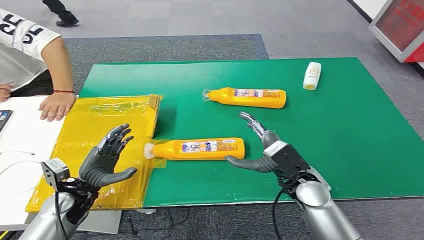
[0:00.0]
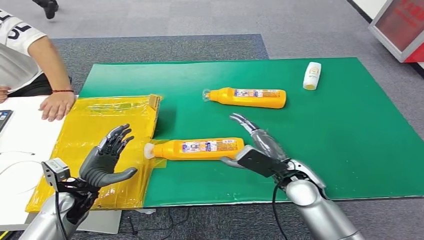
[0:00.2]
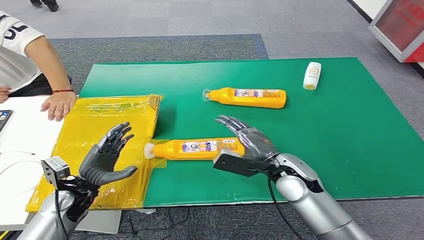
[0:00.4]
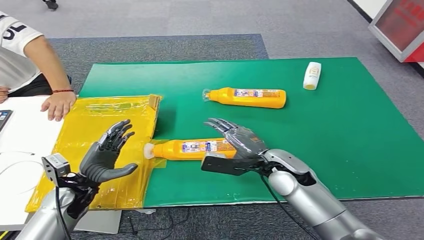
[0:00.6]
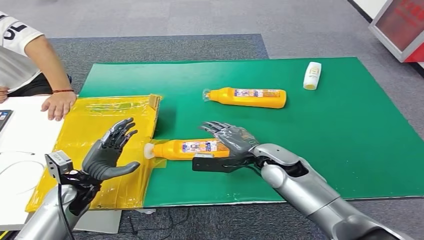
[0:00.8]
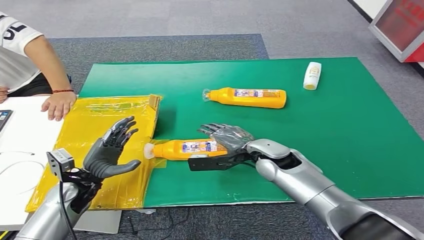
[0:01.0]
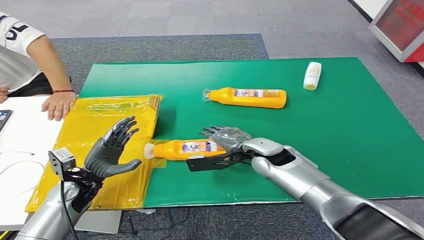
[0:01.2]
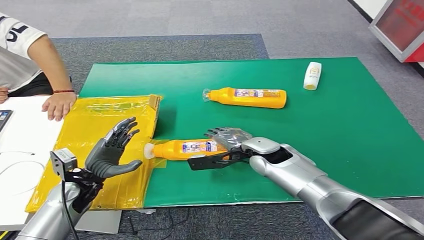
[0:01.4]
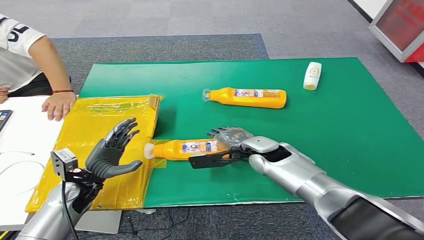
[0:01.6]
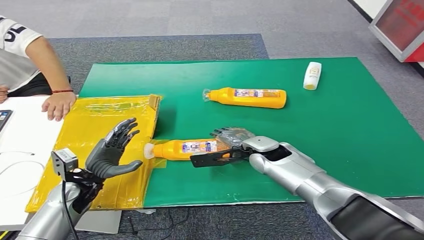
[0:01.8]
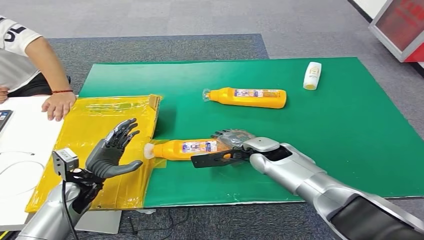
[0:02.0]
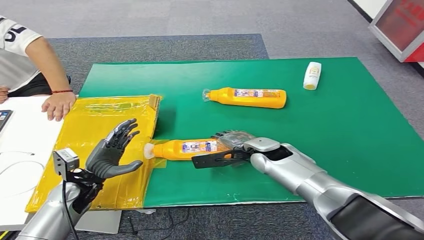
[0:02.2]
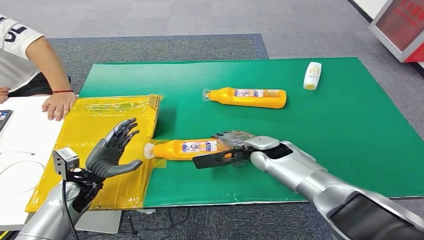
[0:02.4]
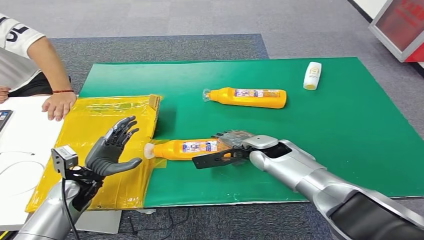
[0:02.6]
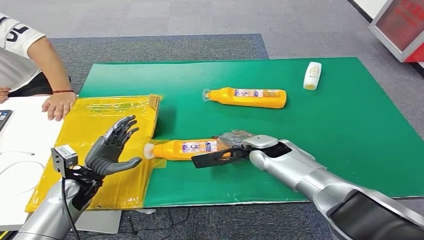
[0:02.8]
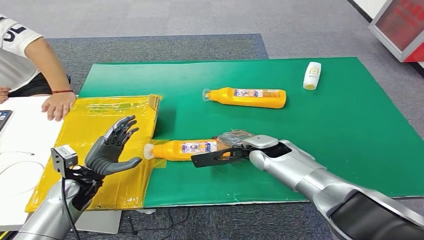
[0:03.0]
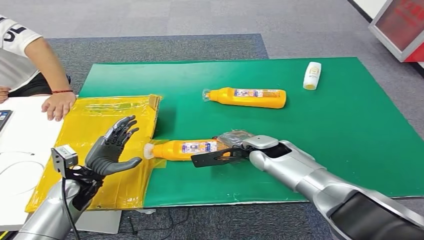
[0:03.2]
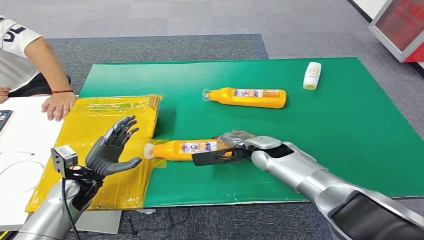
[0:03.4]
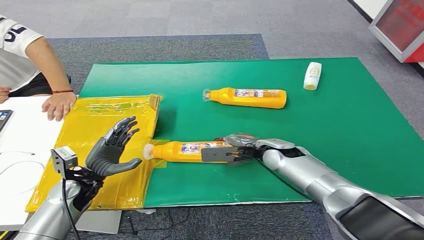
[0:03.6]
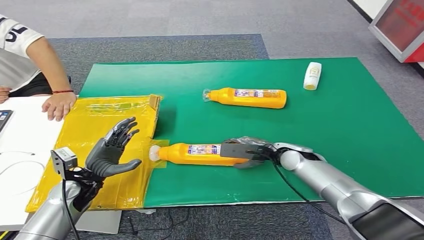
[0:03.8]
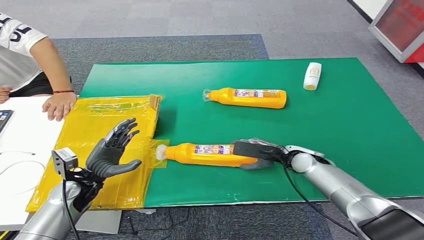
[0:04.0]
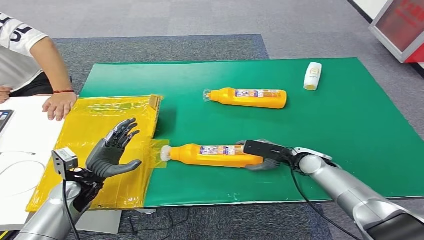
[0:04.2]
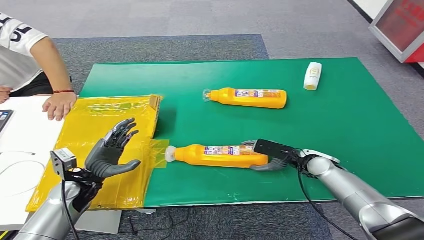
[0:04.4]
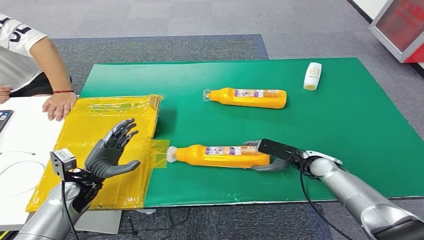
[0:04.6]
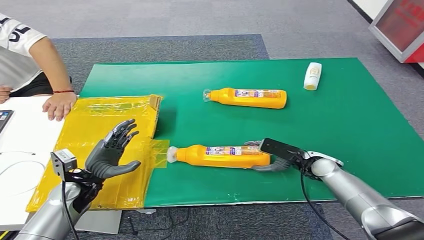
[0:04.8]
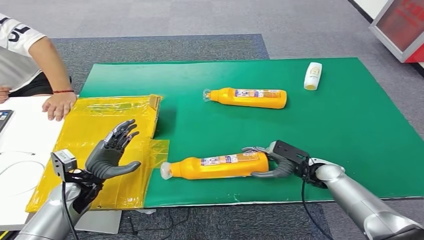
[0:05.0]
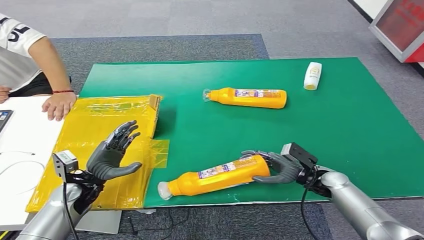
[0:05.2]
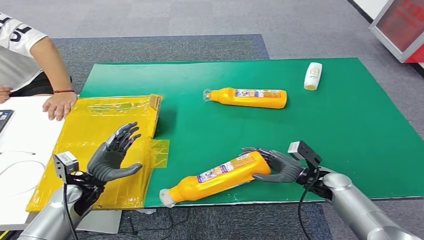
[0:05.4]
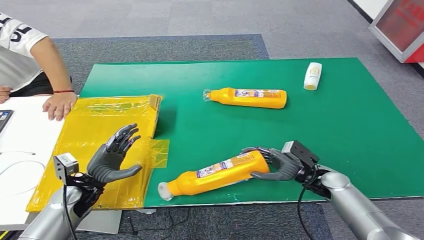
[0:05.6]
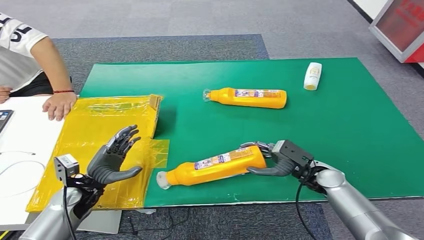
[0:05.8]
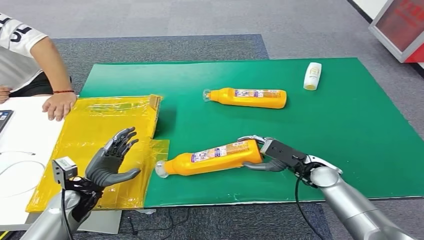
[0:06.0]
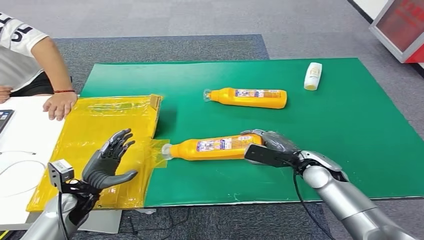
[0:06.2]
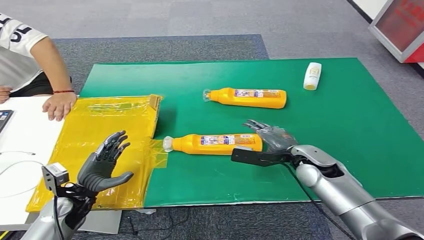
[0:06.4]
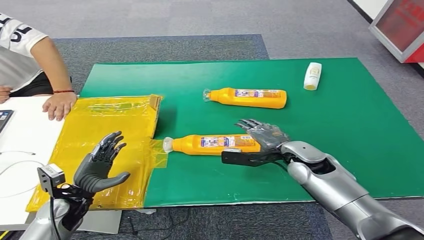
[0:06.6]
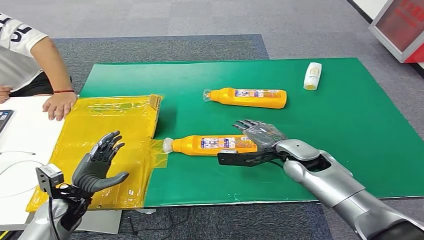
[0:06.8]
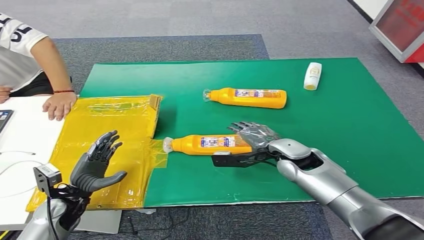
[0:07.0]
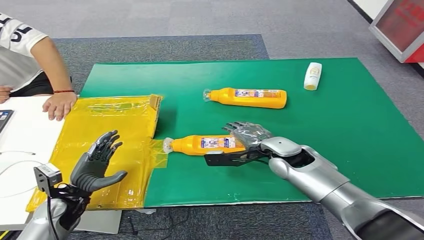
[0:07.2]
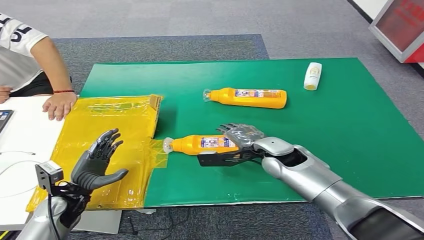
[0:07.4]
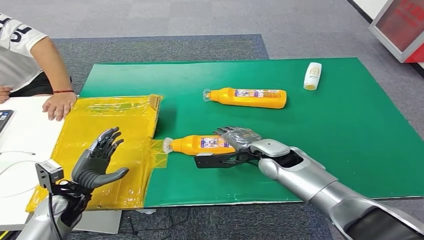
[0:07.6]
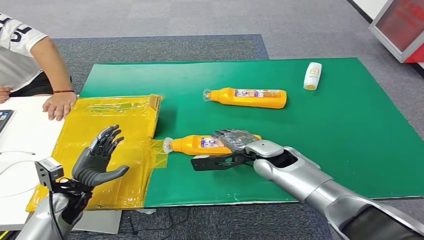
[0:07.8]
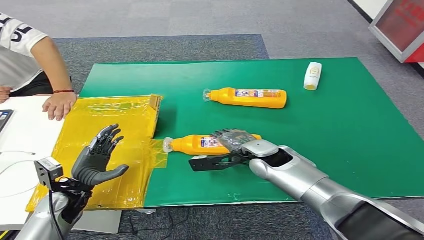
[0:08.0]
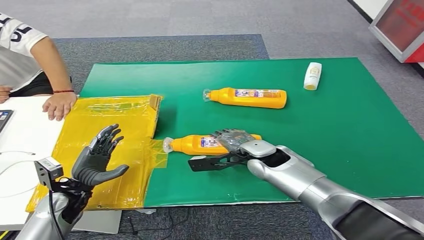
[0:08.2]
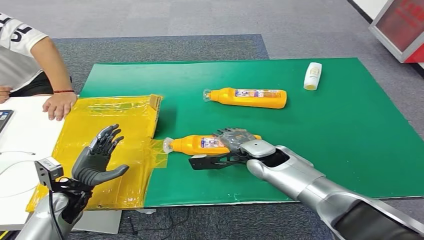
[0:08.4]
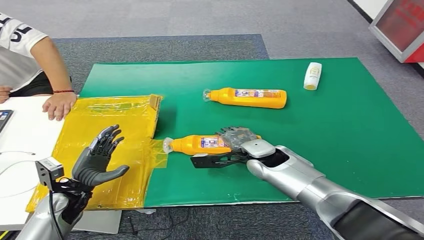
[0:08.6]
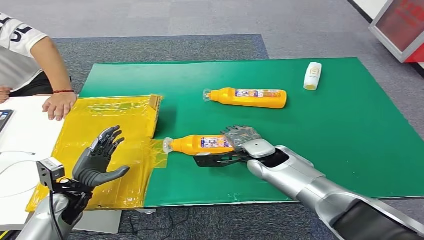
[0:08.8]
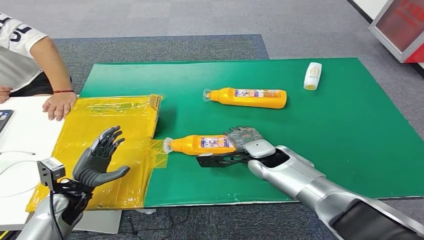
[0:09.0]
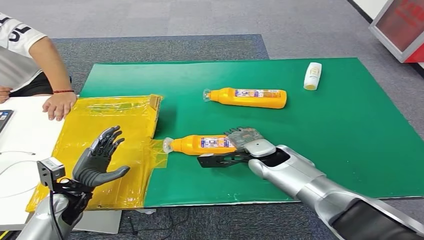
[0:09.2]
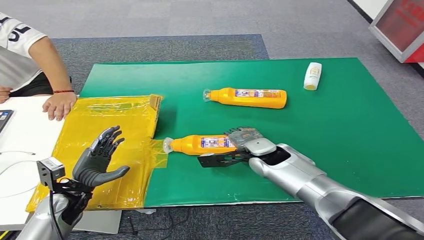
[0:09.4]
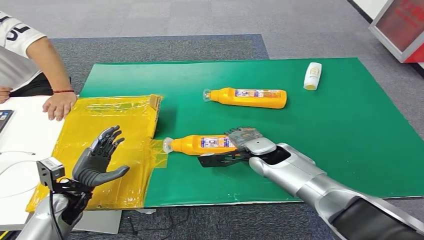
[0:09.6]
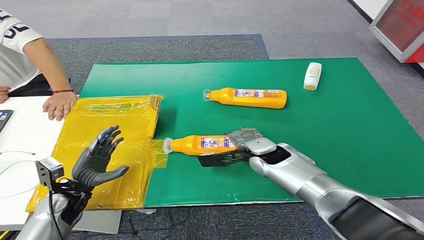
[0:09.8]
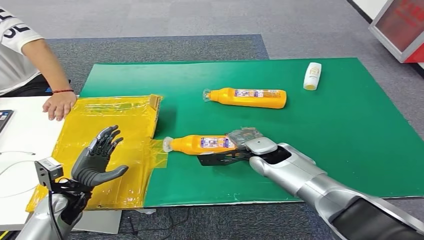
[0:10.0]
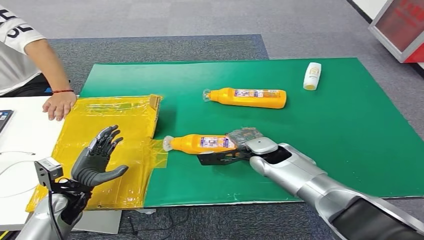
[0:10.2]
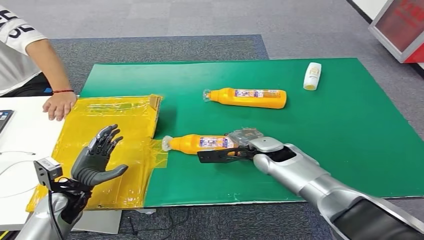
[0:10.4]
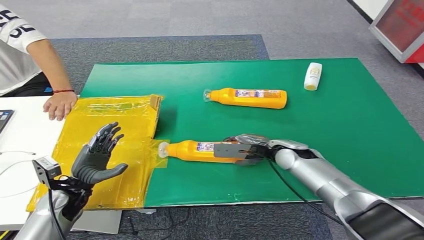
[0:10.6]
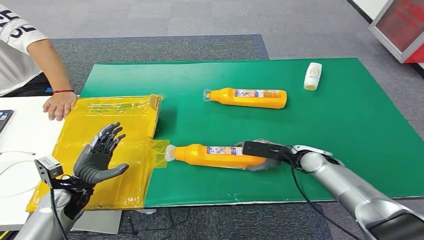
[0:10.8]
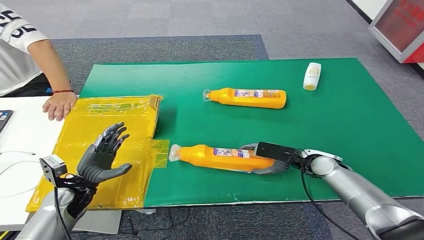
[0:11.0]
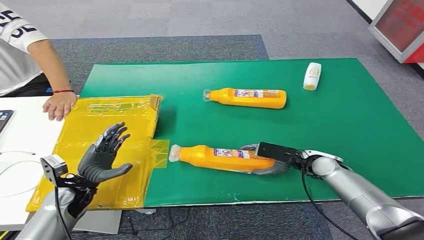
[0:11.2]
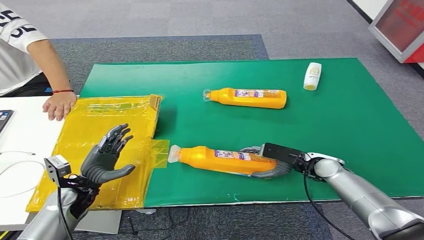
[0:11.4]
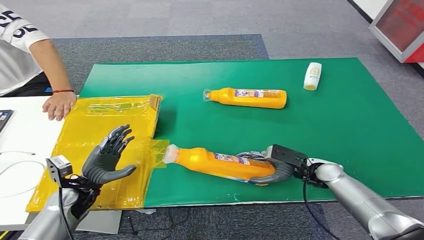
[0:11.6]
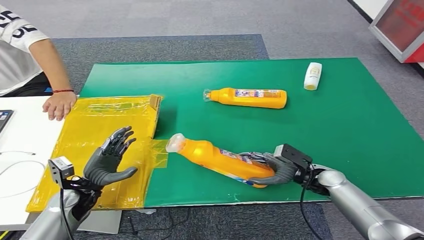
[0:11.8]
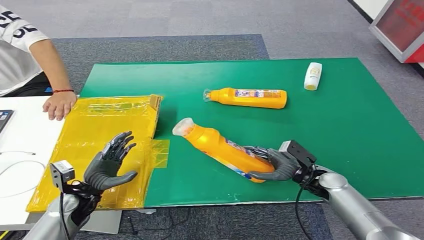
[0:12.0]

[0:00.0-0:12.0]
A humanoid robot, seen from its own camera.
0:01.6 to 0:03.0: The hands make only small movements.
0:03.0 to 0:04.4: The right hand moves to the right and downward, about 15 cm.
0:06.0 to 0:07.6: The right hand shifts some 15 cm to the left and upward.
0:07.6 to 0:10.4: The hands move only a little.
0:10.4 to 0:12.0: The right hand travels to the right, downward and backward by about 15 cm.

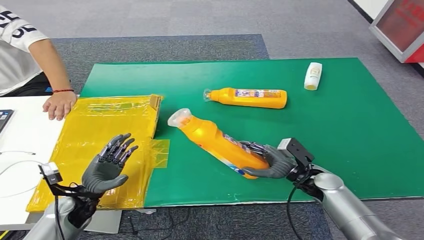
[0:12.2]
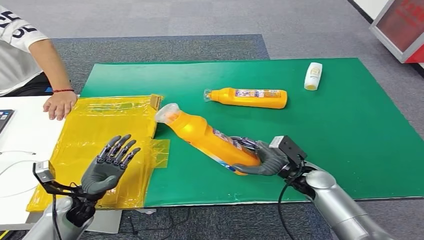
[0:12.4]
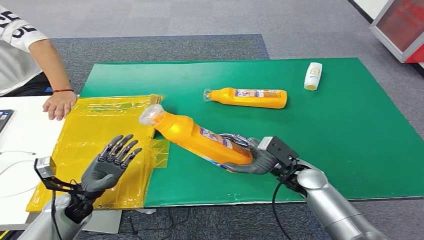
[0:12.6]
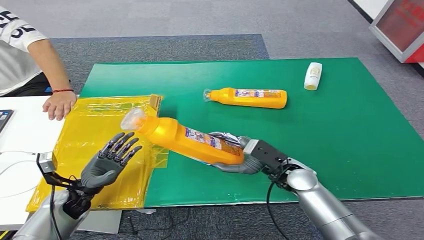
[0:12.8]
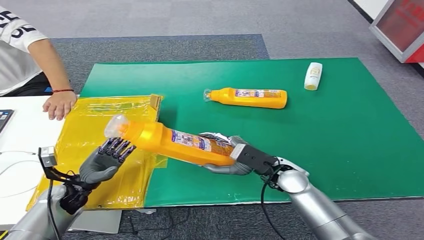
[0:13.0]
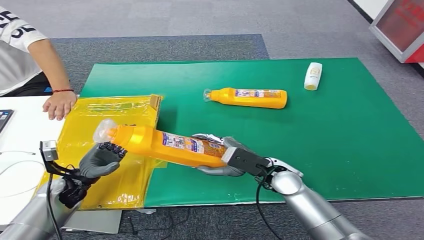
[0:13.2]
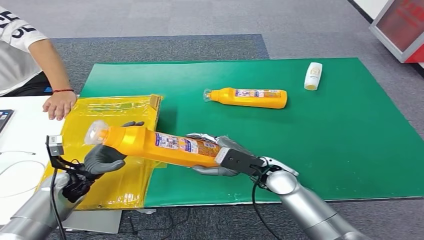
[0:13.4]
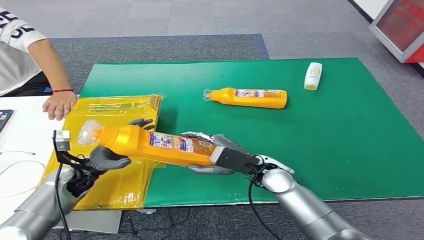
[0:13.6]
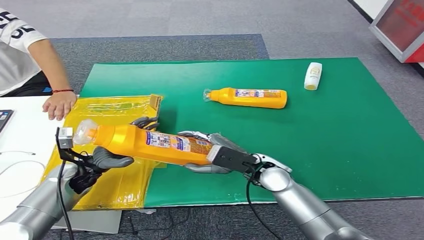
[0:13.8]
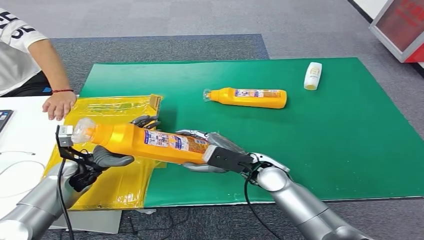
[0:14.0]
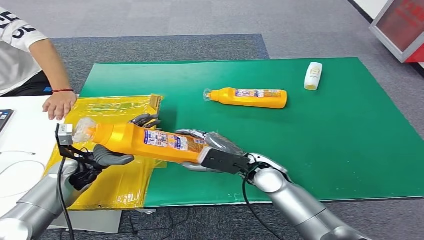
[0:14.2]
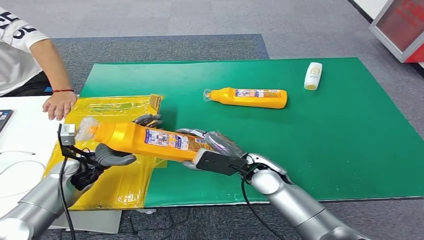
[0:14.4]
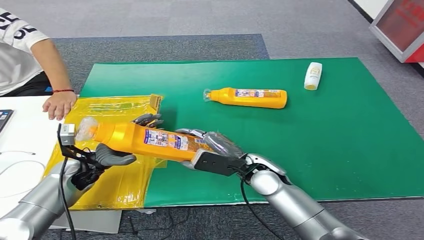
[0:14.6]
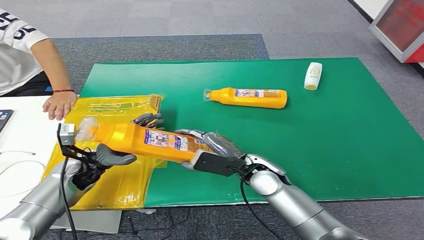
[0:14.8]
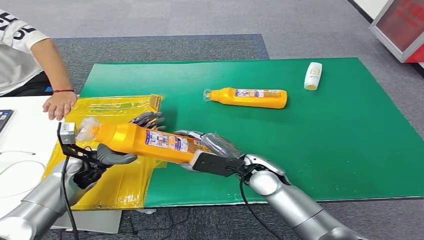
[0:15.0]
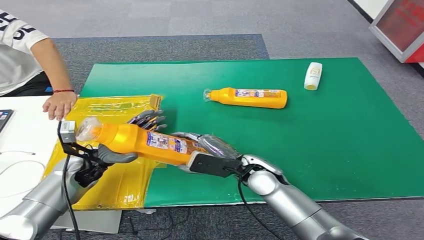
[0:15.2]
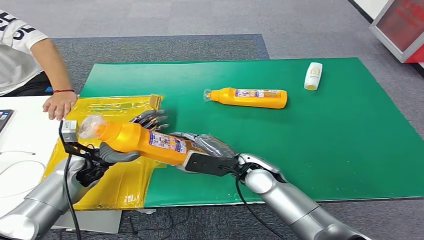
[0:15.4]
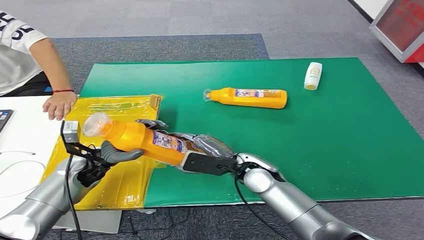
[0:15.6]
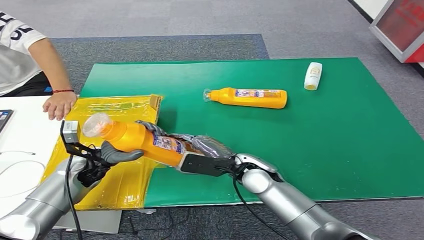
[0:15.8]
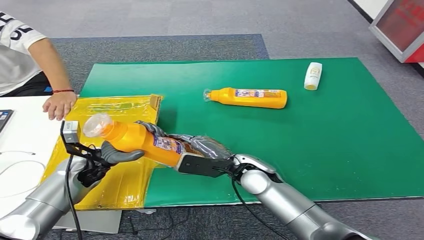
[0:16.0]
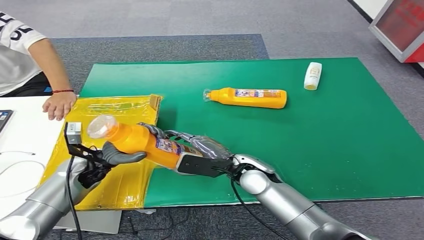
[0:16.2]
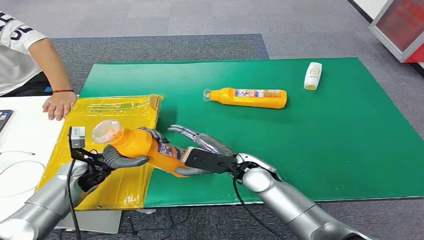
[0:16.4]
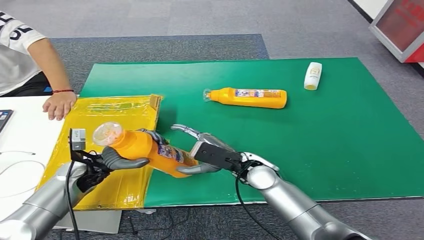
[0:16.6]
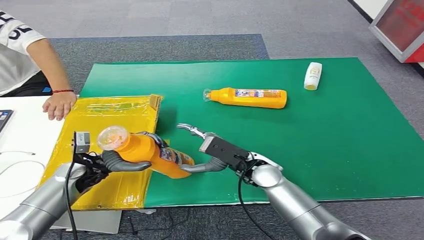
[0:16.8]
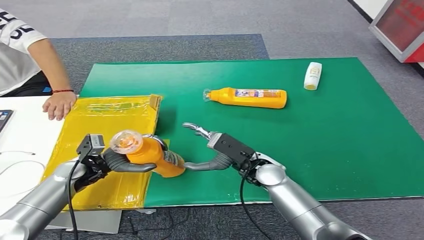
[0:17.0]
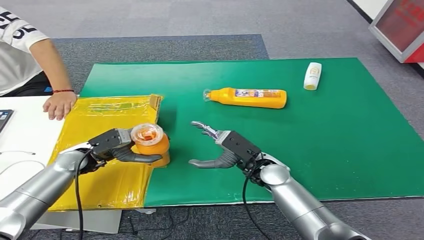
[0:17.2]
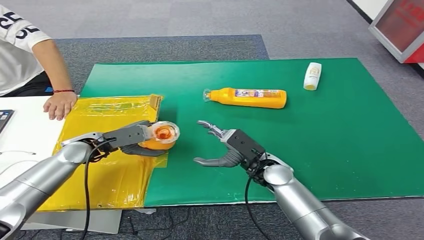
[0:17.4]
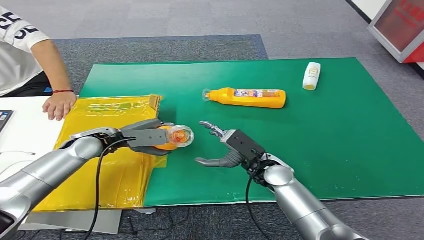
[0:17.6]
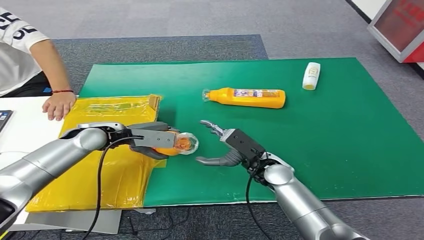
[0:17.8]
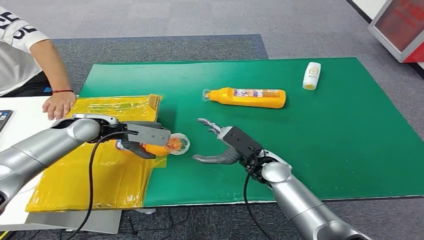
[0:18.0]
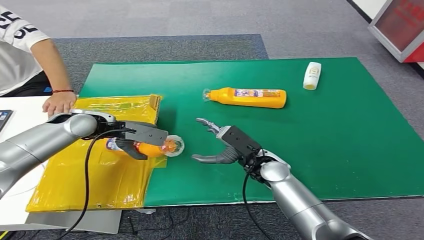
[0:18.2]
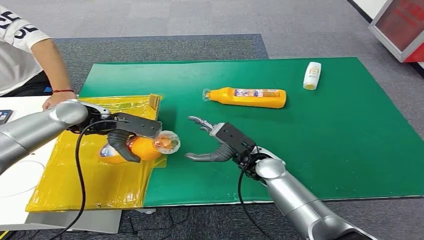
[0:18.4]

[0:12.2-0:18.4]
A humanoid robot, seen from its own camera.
0:12.2 to 0:13.8: The left hand heads forward and upward, covering some 10 cm. Meanwhile the right hand goes roughly 15 cm to the left and upward.
0:13.8 to 0:16.8: There are only small adjustments of the hands.
0:16.8 to 0:18.4: The left hand shifts roughly 20 cm upward and forward.
